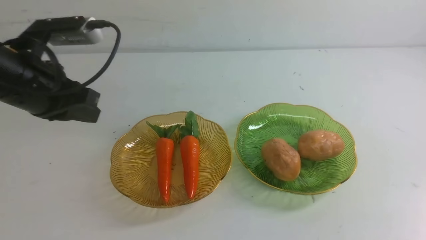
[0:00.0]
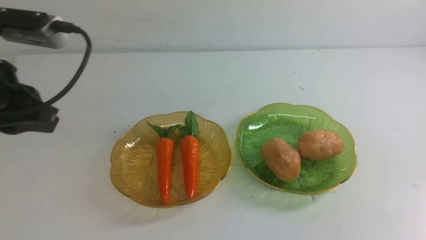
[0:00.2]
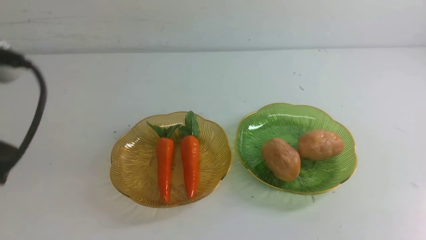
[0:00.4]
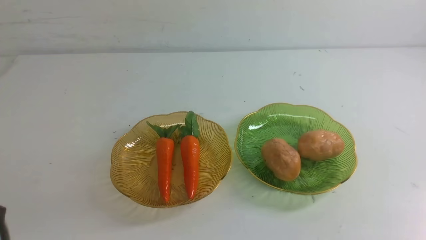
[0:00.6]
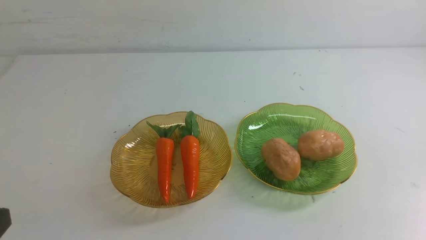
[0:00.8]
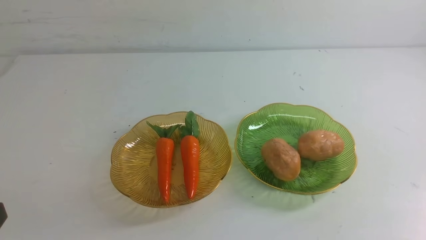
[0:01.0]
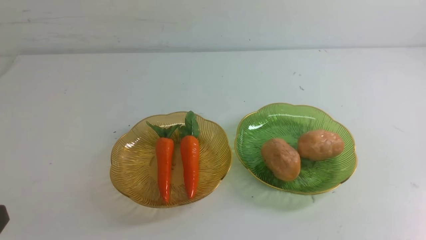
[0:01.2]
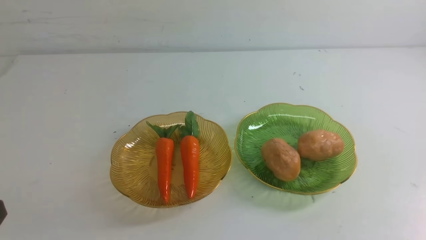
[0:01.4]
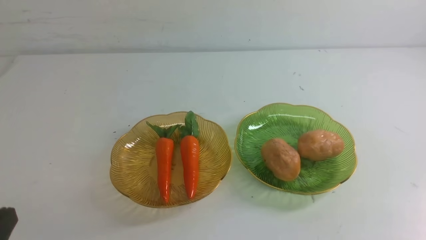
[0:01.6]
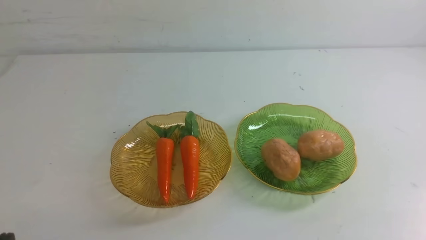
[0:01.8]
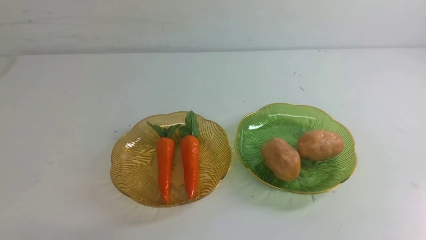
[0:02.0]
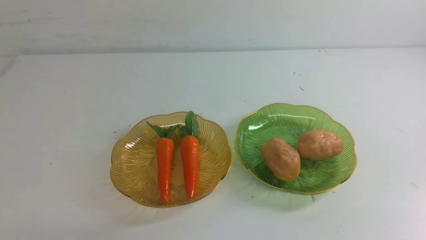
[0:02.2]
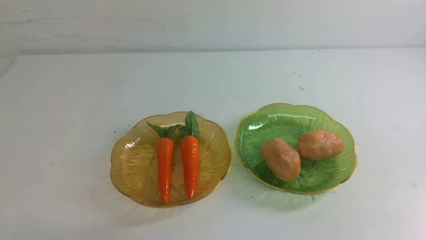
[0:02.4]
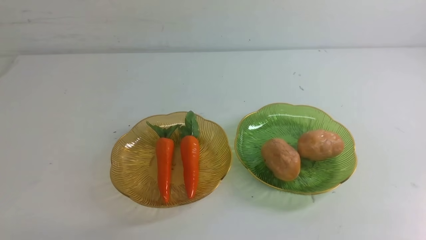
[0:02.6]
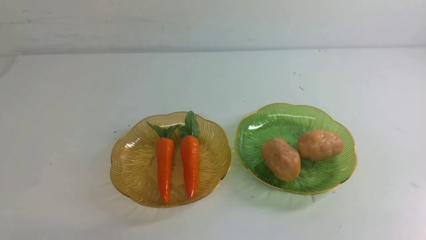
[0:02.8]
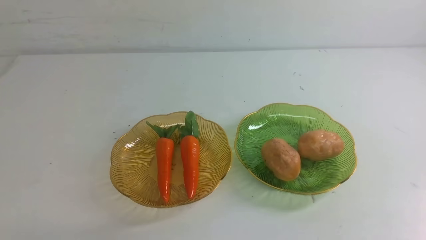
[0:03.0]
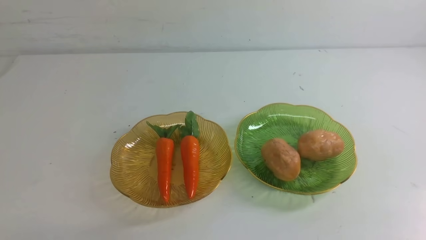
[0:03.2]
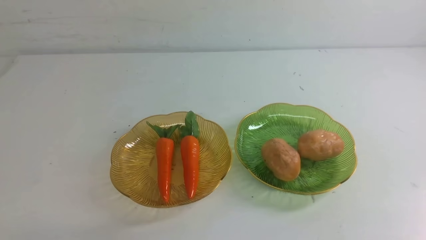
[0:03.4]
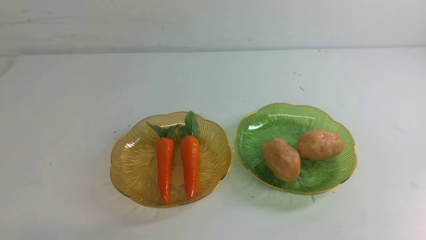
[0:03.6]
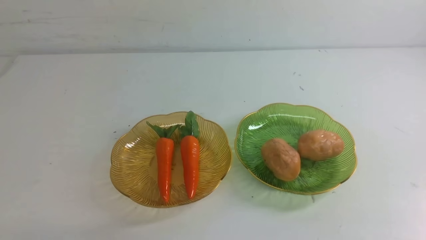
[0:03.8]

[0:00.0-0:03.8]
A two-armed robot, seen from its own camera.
0:00.0 to 0:01.2: The left gripper moves backward, roughly 20 cm.
0:02.6 to 0:03.8: Neither gripper changes place.
